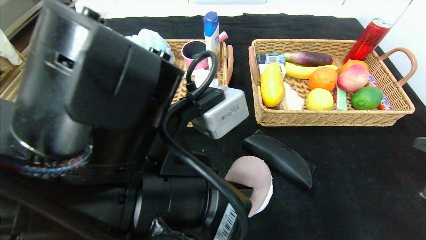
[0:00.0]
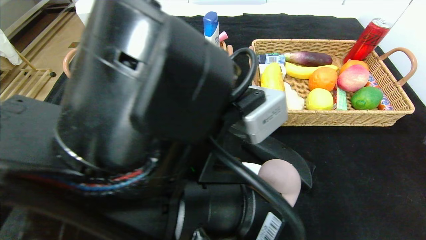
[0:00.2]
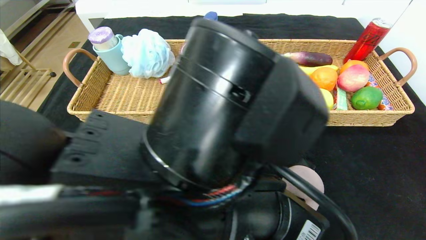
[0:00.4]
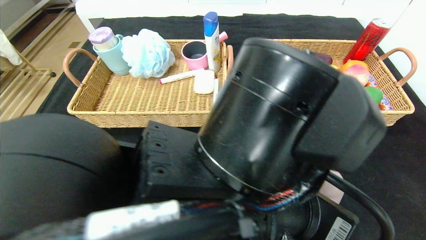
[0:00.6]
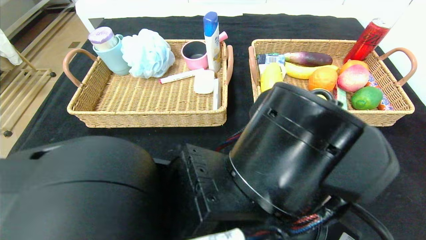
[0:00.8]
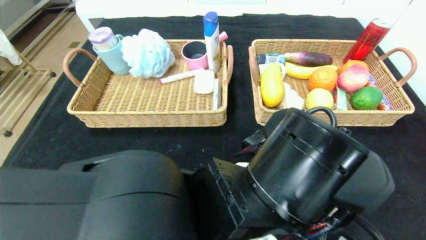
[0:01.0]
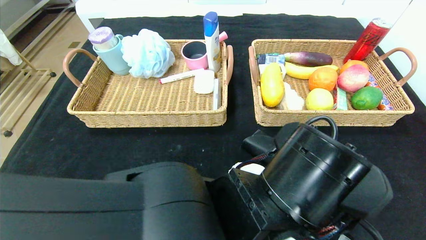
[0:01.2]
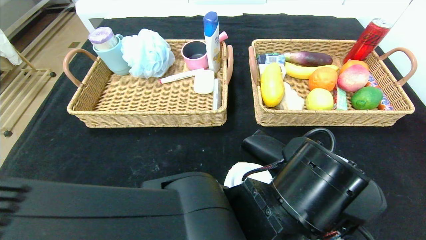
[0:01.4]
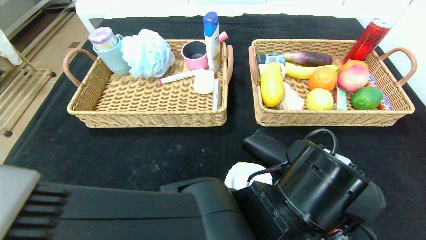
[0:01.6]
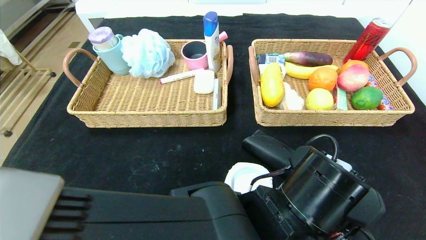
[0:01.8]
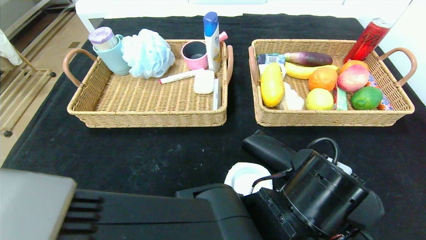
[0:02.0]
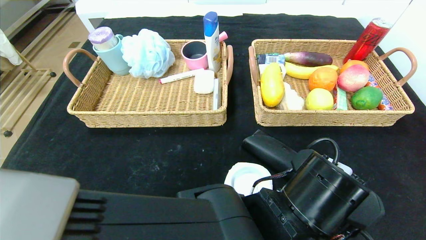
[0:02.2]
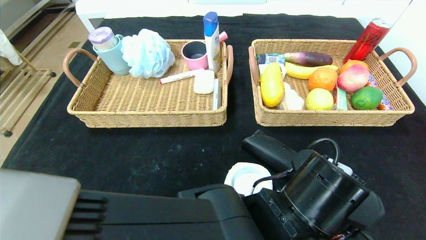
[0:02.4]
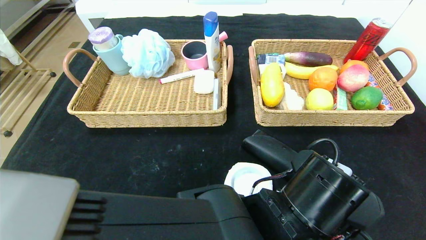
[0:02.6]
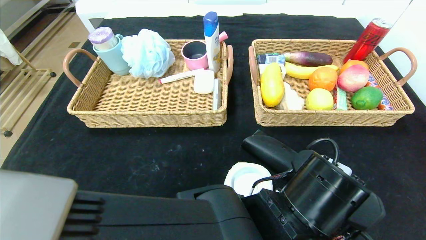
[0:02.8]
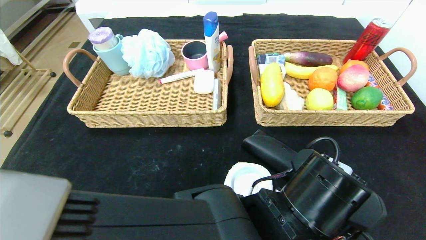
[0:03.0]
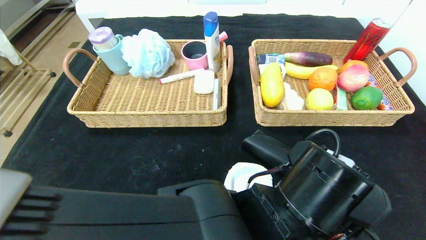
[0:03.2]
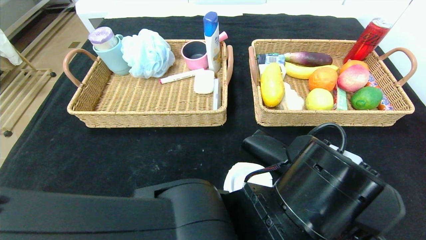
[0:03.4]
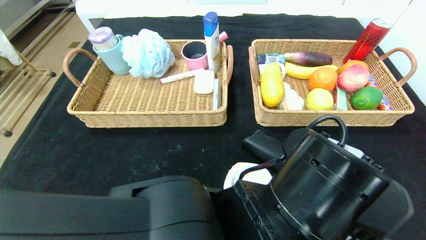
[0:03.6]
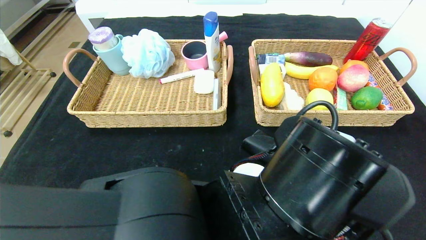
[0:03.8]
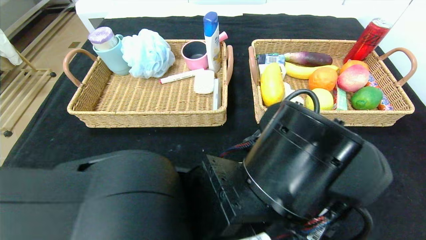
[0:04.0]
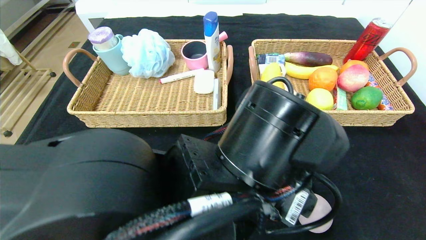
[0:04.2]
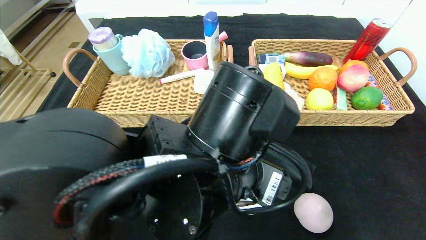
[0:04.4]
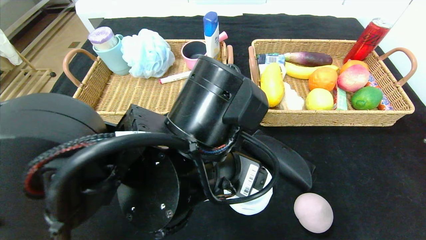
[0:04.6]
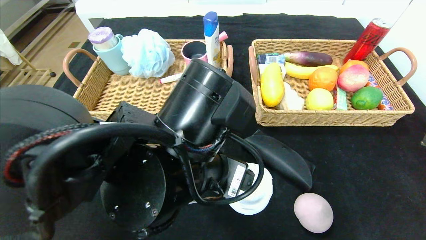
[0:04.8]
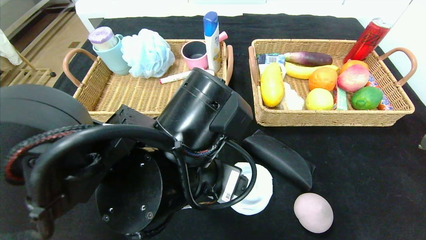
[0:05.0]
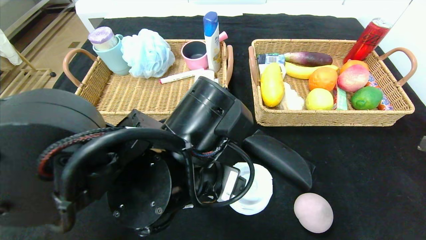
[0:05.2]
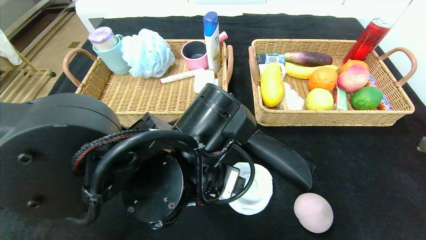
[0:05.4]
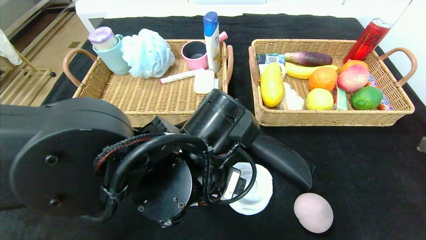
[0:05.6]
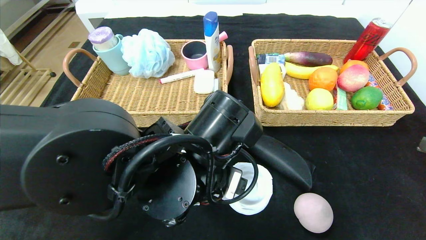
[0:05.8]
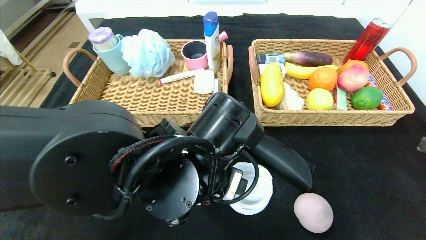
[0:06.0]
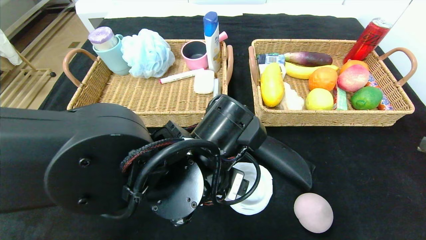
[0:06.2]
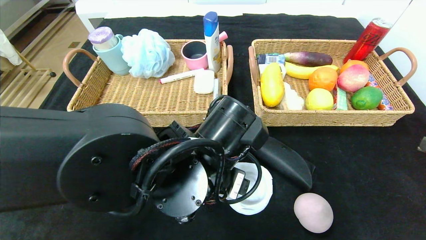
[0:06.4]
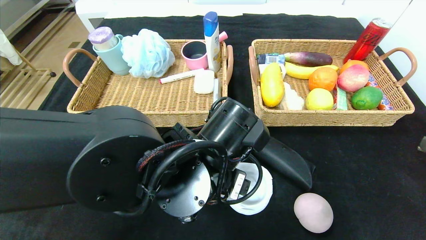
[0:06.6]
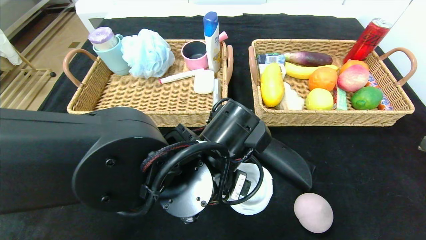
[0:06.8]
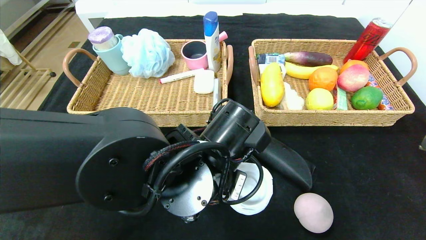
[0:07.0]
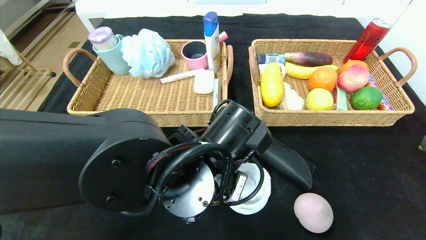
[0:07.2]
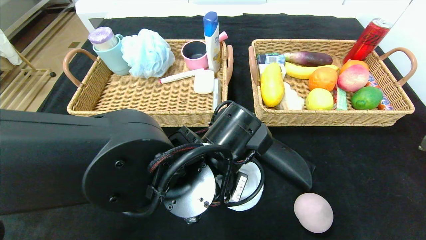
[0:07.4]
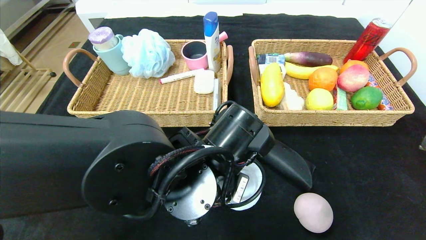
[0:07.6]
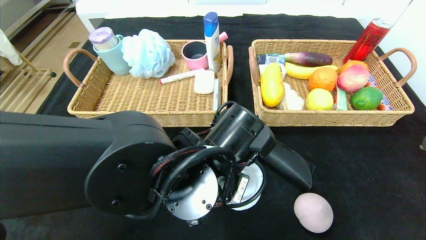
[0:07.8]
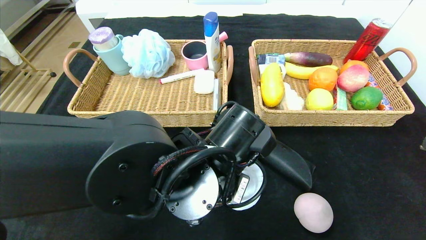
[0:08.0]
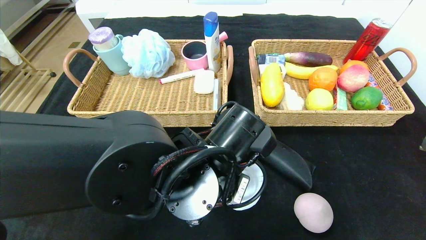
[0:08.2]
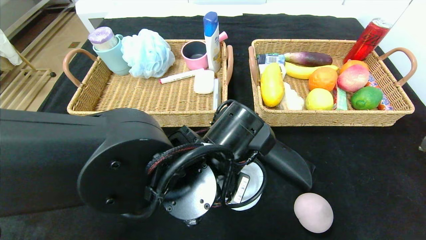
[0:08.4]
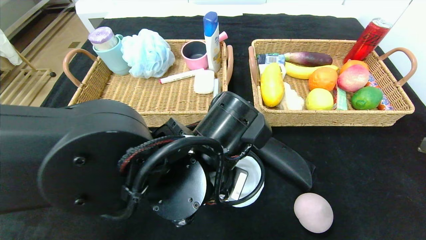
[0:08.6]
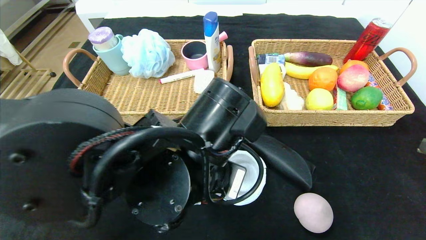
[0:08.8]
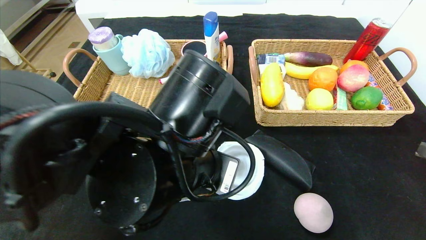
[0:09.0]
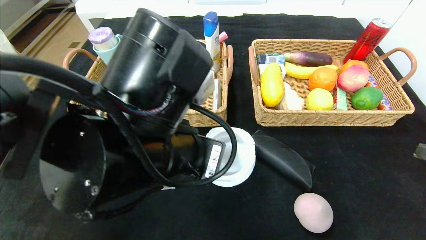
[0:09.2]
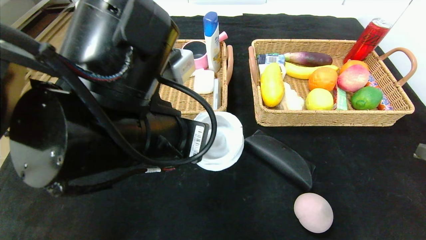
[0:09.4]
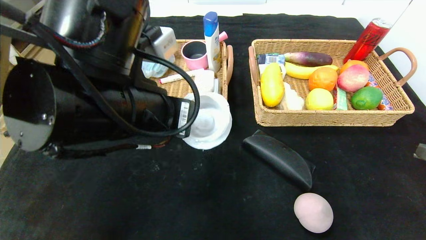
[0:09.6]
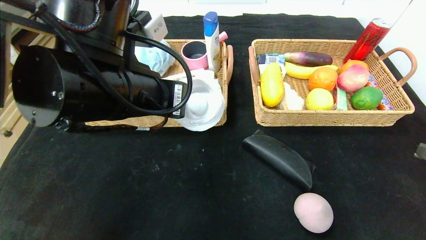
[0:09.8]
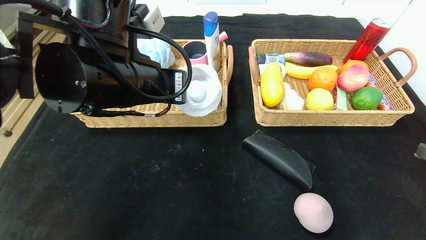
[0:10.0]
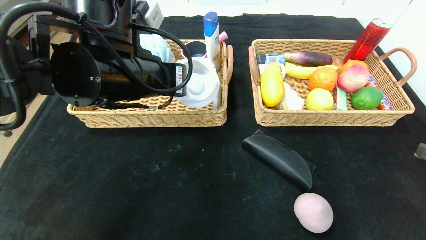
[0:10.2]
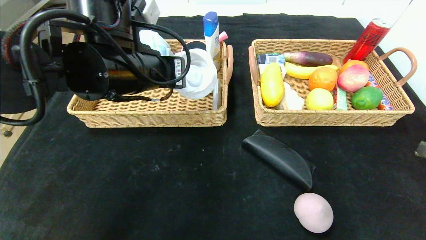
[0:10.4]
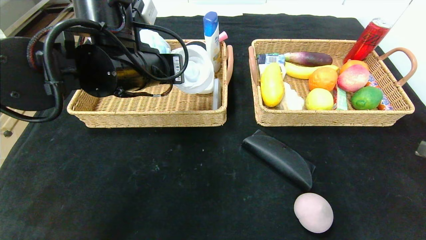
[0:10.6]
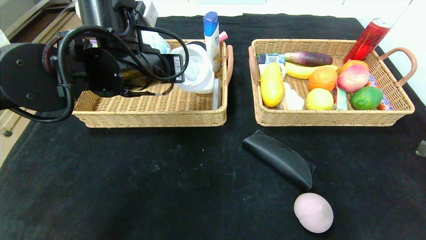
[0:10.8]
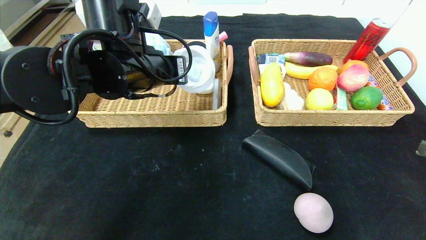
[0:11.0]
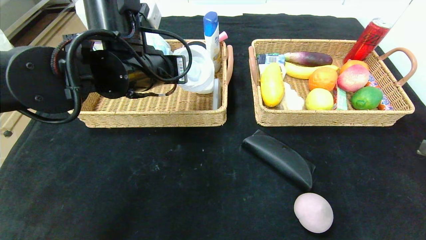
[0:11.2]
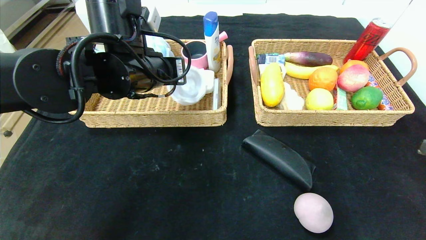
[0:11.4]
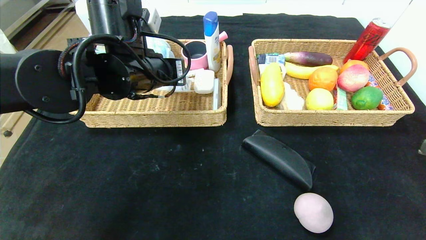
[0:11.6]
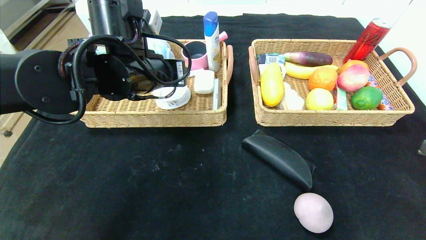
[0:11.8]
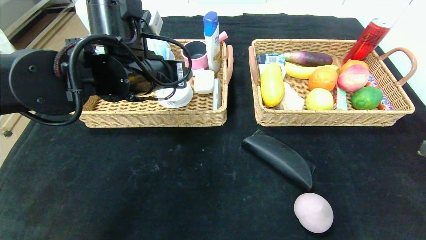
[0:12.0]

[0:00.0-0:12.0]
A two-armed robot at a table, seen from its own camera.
Step, 0:00.0 to 0:03.0: Place the peach in the center of the table.
Step, 0:03.2 to 0:11.8: Grasp the tape and put it in the left basket.
0:00.0 to 0:01.6: The left gripper goes some 15 cm to the right and downward.
0:01.6 to 0:03.0: The left gripper opens its fingers.
0:03.0 to 0:04.4: The left gripper moves to the left and upward, approximately 10 cm.
0:06.0 to 0:07.6: The left gripper closes.
0:07.6 to 0:09.0: The left gripper shifts some 5 cm upward.
0:09.0 to 0:10.4: The left gripper shifts about 15 cm forward, to the left and upward.
0:10.4 to 0:12.0: The left gripper opens its fingers.

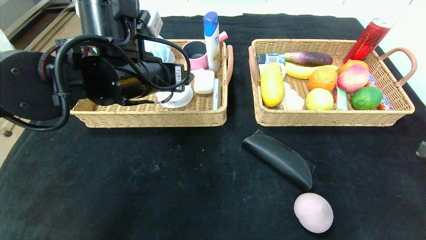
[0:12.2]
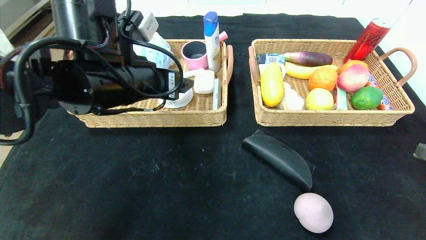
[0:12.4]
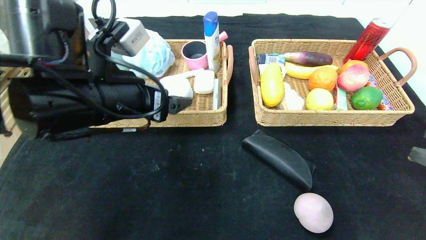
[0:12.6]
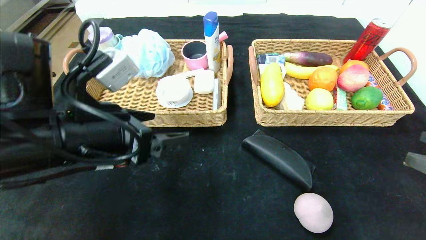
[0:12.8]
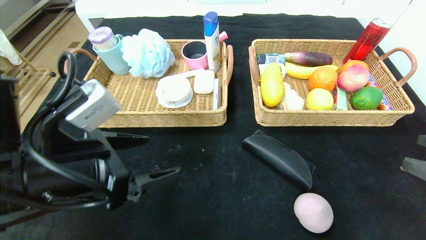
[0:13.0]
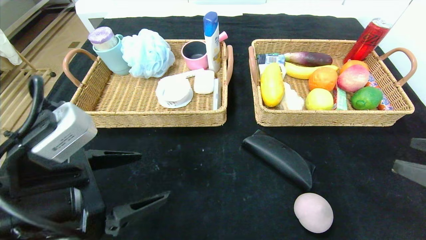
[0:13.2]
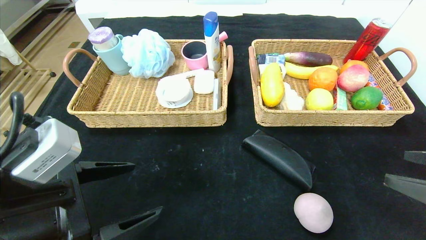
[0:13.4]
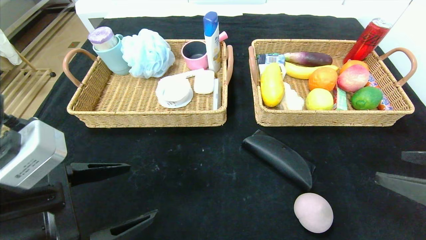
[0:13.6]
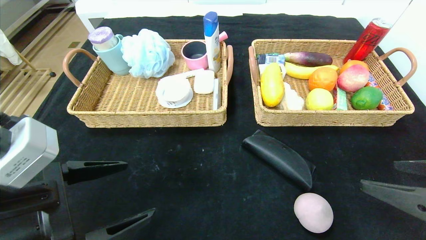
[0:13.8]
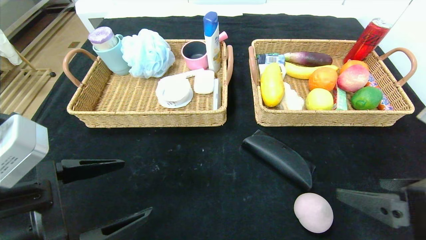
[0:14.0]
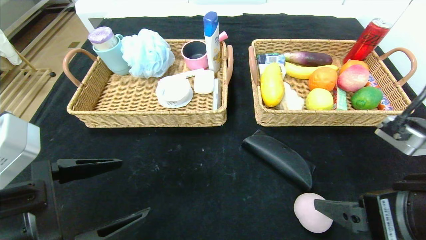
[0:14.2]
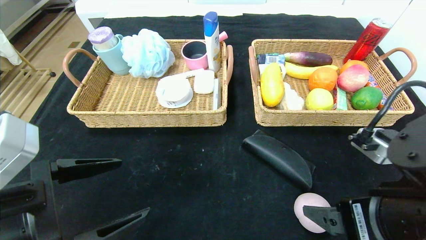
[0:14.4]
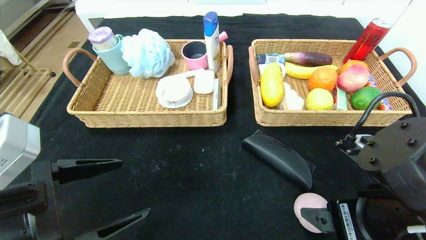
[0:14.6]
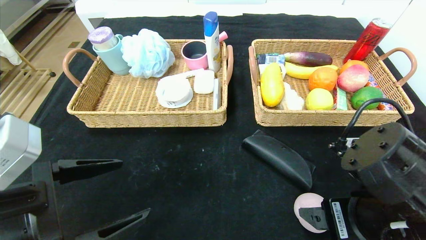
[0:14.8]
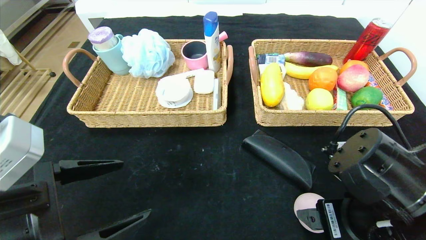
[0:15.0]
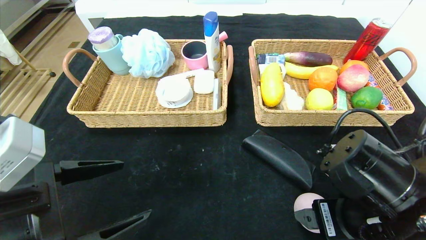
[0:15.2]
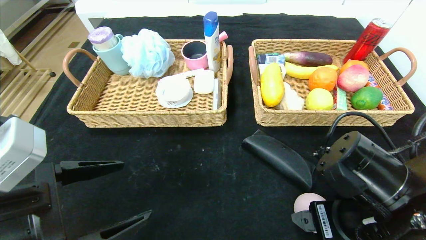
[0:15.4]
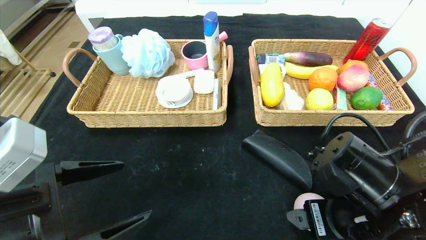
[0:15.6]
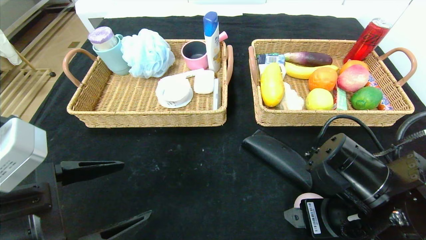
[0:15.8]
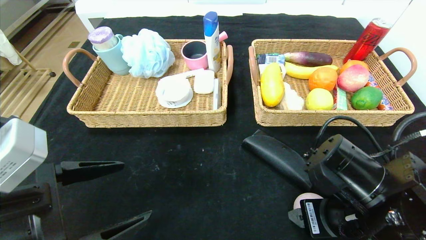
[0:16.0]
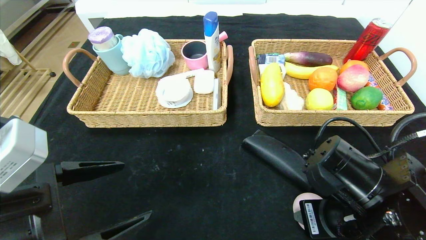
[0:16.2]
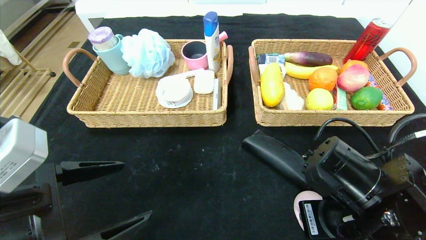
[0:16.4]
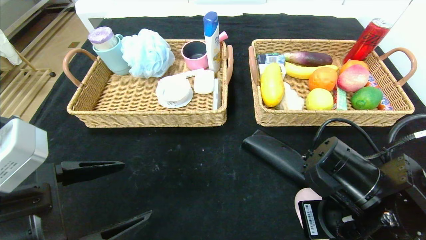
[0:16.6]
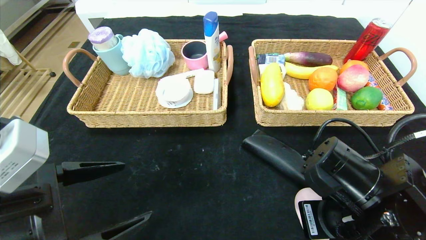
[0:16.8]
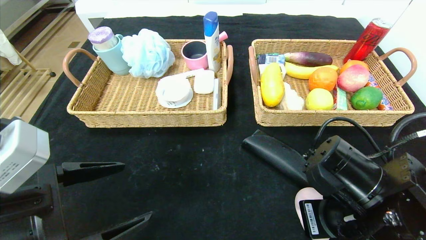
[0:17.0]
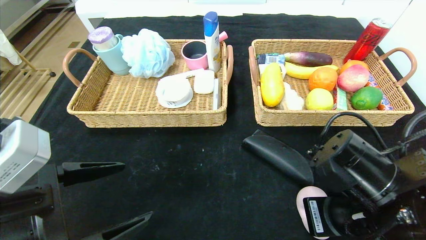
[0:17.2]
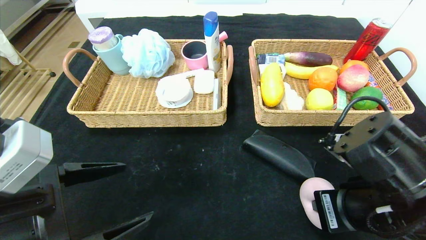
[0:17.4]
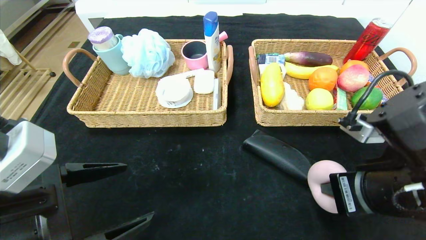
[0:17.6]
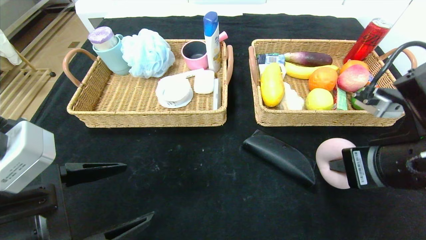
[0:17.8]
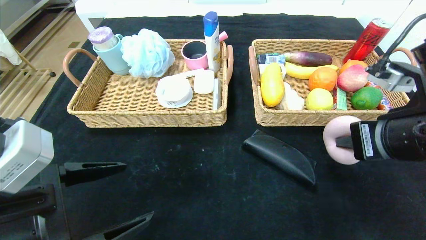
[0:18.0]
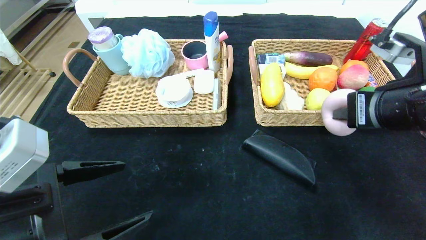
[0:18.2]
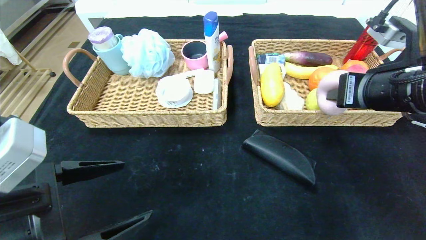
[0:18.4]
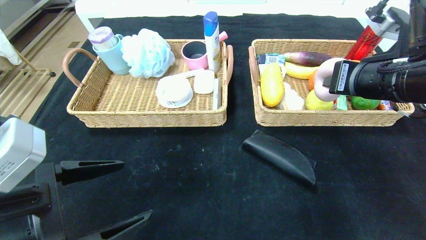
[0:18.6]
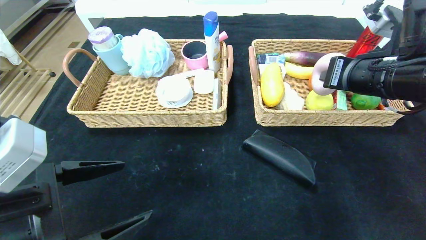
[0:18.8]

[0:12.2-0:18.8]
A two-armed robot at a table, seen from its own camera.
0:12.2 to 0:13.8: The right gripper moves roughly 5 cm. The left gripper travels backward, to the left and downward by approximately 20 cm.
0:13.8 to 0:15.4: The right gripper heads to the left, downward and forward, covering approximately 15 cm.
0:15.4 to 0:17.2: The right gripper closes.
0:17.2 to 0:18.8: The right gripper shifts some 15 cm upward, forward and to the right.
